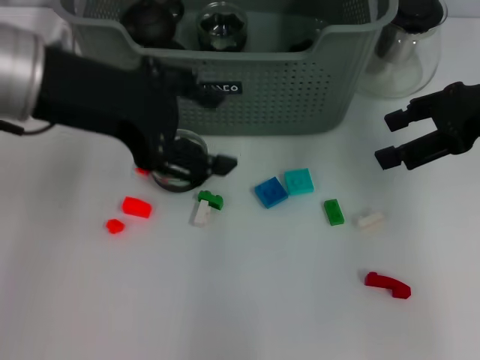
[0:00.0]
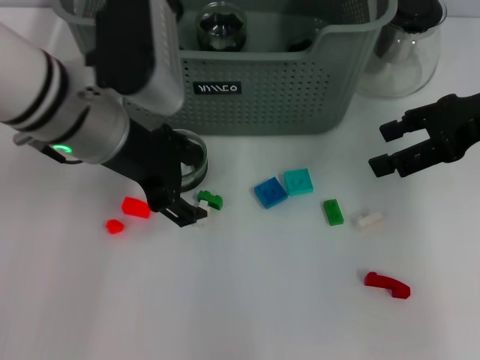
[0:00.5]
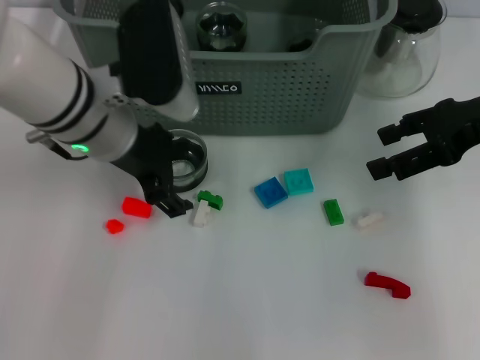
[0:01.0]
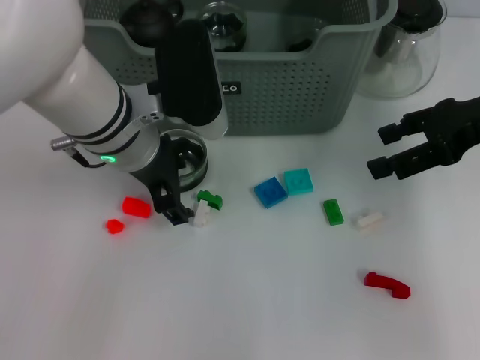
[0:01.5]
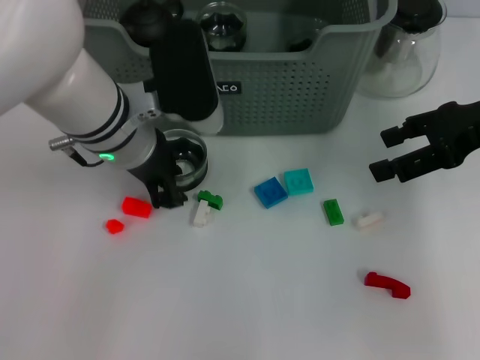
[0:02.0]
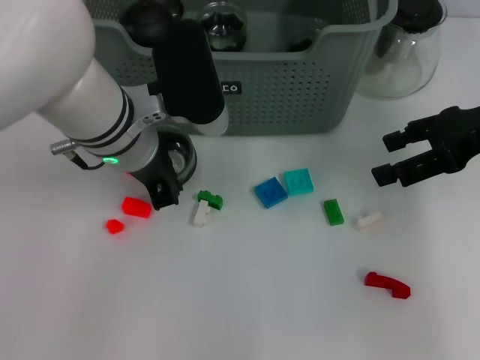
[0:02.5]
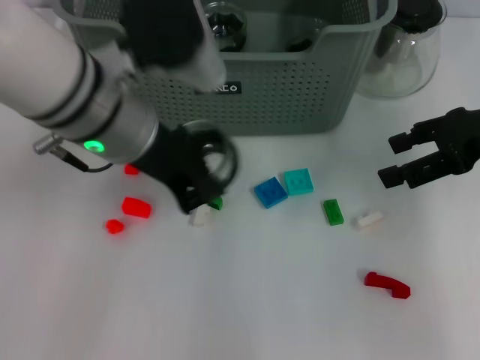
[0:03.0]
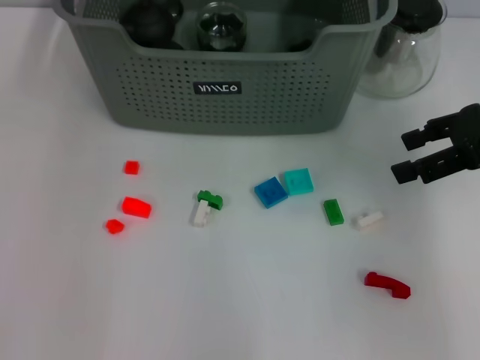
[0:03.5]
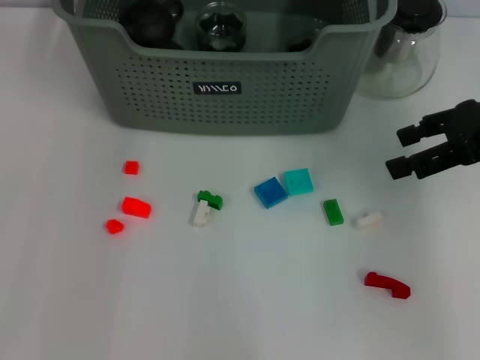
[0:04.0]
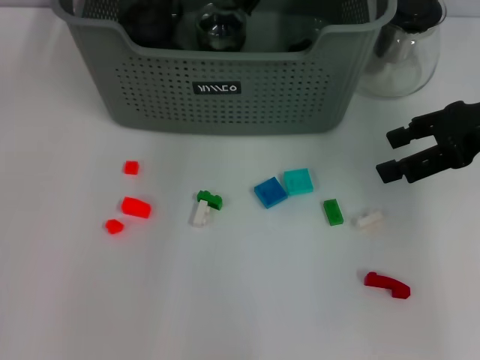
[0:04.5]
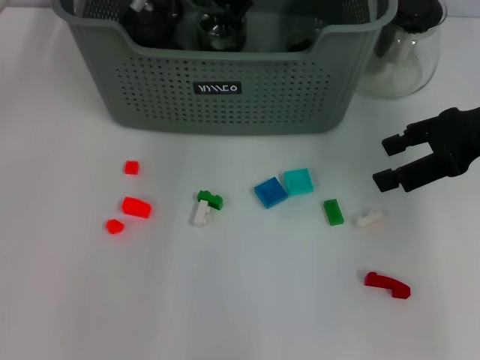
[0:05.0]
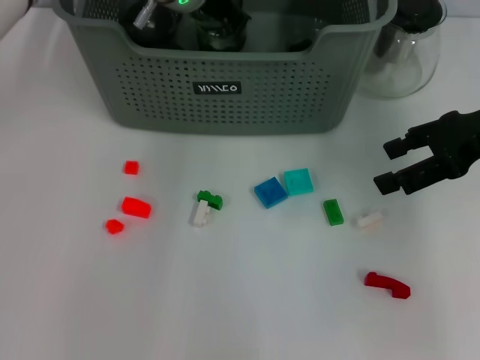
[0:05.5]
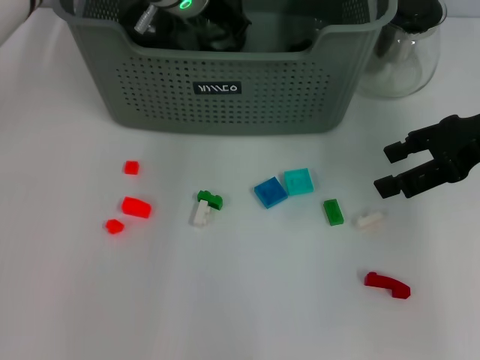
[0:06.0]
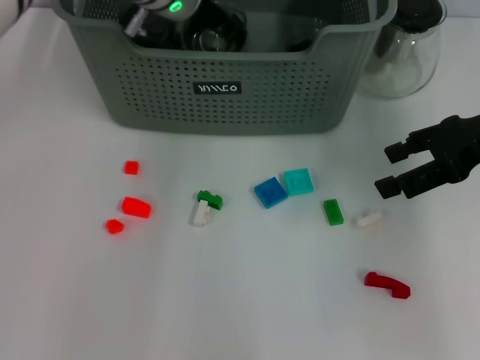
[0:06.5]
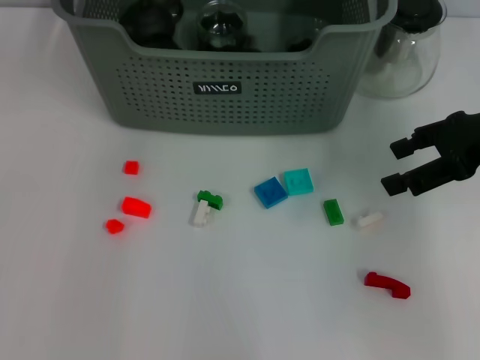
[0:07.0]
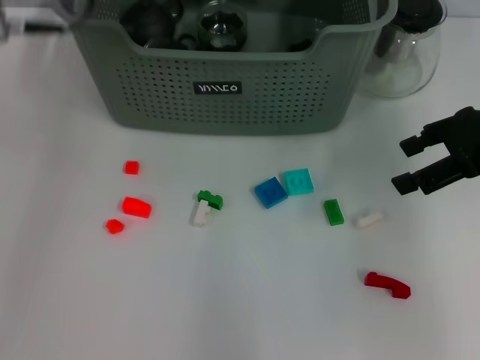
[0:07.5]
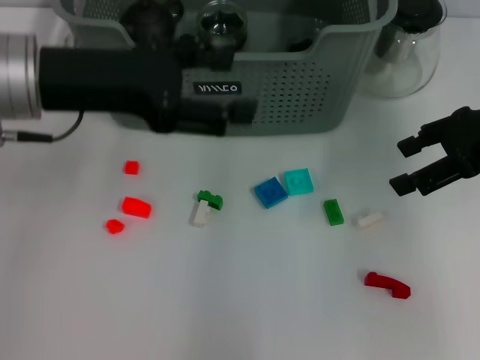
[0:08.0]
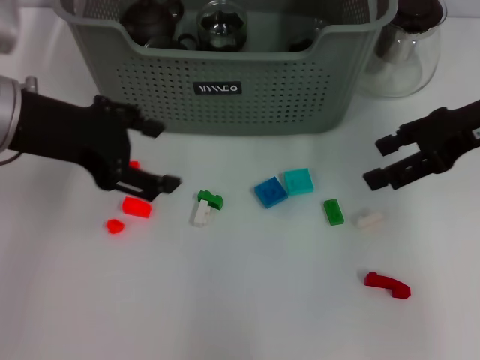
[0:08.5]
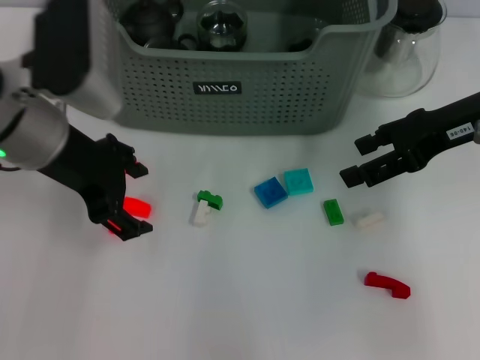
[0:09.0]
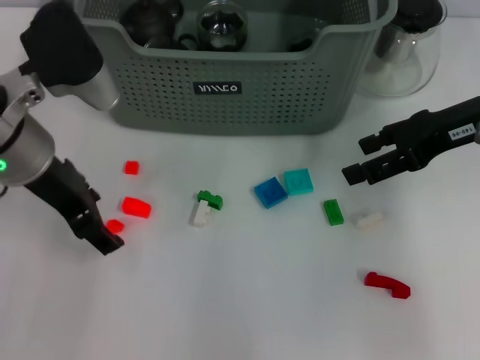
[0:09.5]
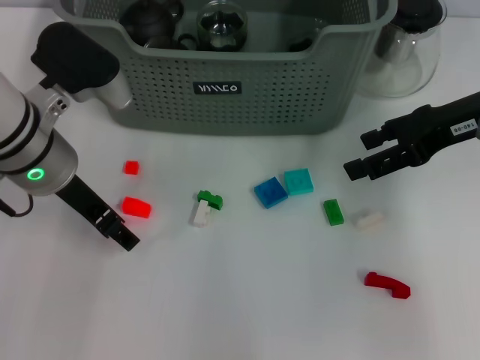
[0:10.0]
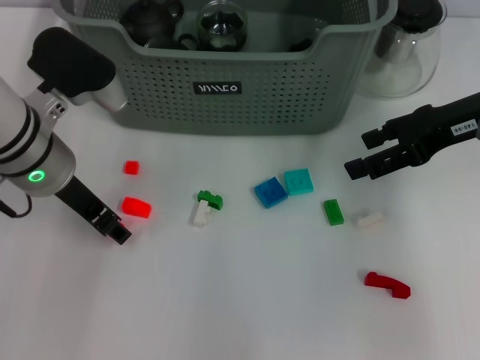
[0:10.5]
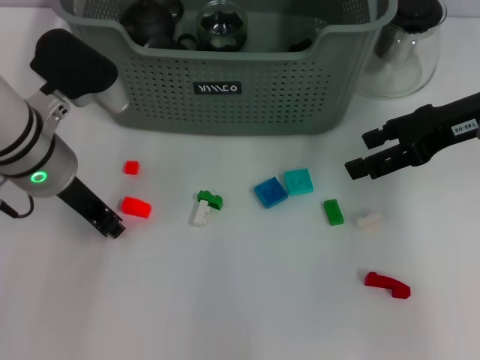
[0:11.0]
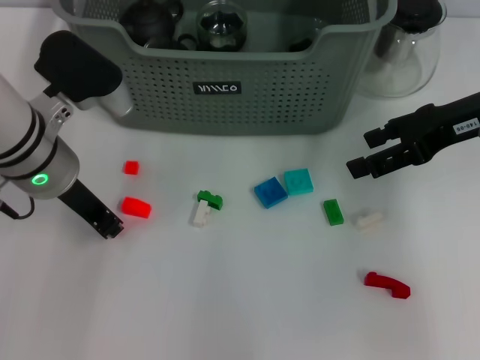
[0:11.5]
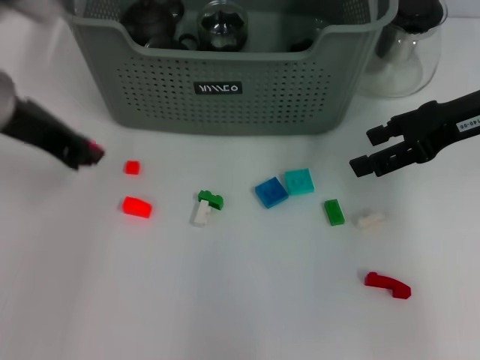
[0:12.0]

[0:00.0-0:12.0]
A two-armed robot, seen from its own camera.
Task of the whole recording: pick up the teacup on the table and place it into the storage bin, pick up the block on the table and place it into the storage bin.
Step, 0:00.0 to 0:02.0: Grasp the cup with left gripper.
Step, 0:03.0 to 0:06.5: Place the cup in the storage box with left gripper.
Step, 0:07.0 to 0:11.0: Grasp the orange block with left gripper.
0:00.0 to 0:02.0: The left gripper moves downward and to the right, approximately 15 cm.
0:02.0 to 0:04.0: The left gripper is displaced upward and forward by some 20 cm, and closes.
0:04.0 to 0:06.0: The left gripper moves downward and to the right, roughly 15 cm.
0:06.0 to 0:08.0: The left gripper travels backward and to the left by about 20 cm, and opens up.
0:08.0 to 0:10.0: The left gripper heads downward, covering approximately 5 cm.
0:10.0 to 0:12.0: The left gripper moves upward, approximately 10 cm, and closes up.

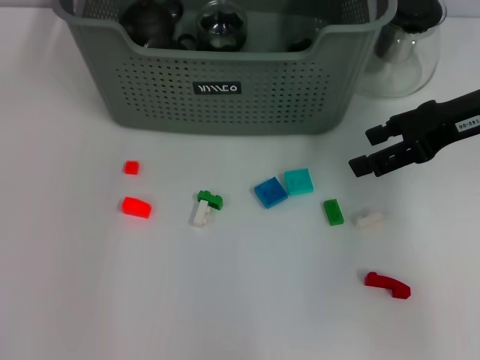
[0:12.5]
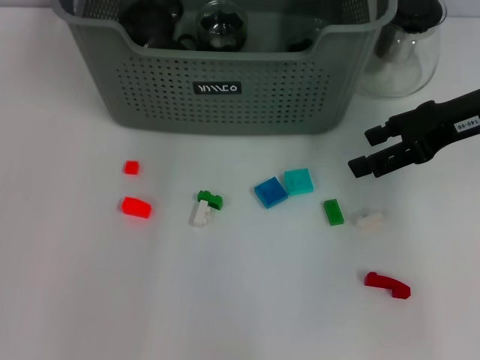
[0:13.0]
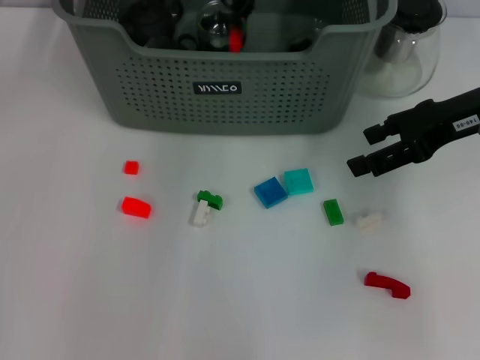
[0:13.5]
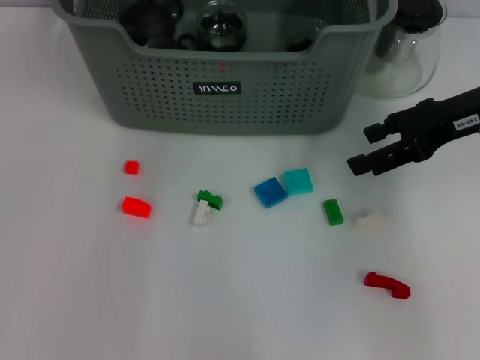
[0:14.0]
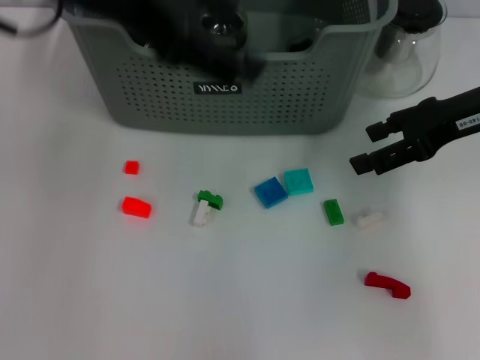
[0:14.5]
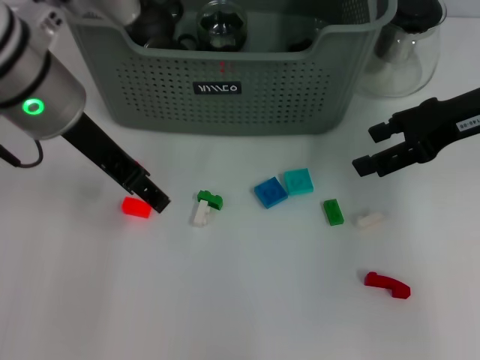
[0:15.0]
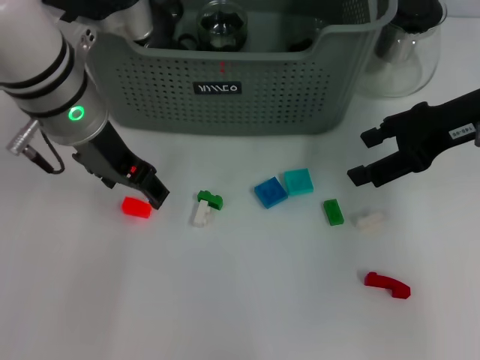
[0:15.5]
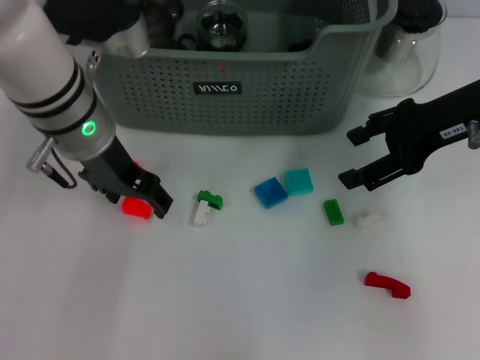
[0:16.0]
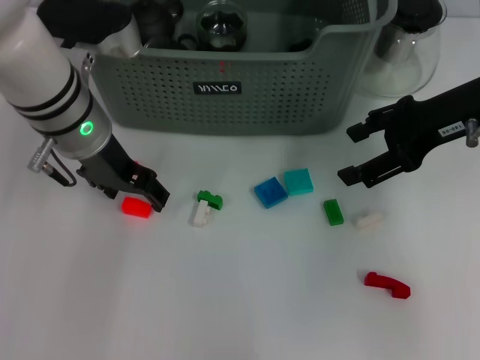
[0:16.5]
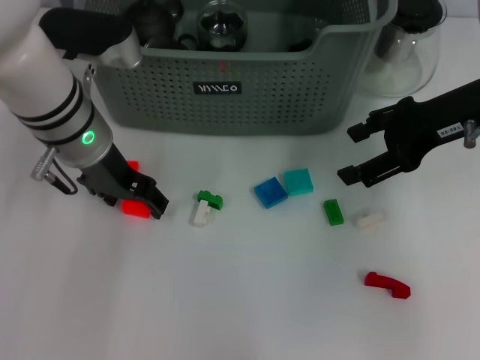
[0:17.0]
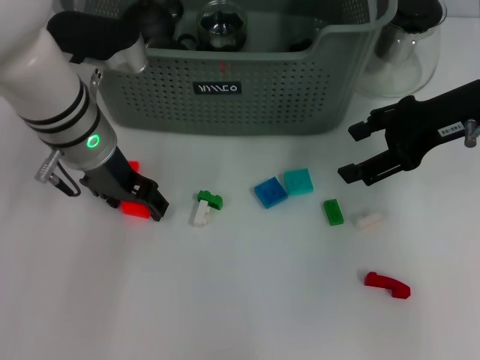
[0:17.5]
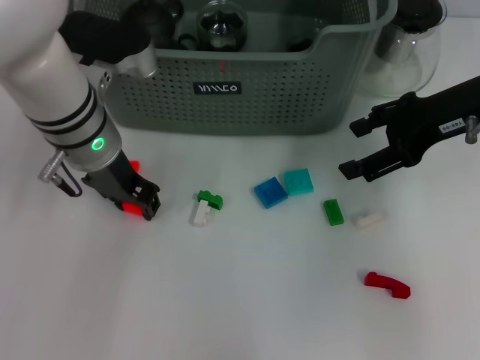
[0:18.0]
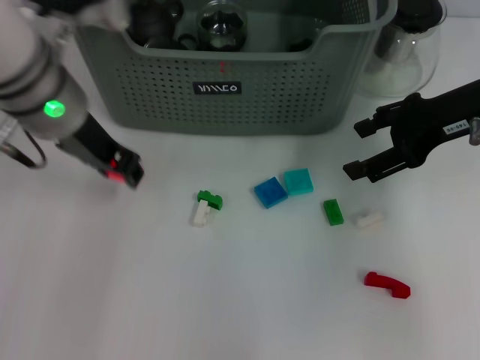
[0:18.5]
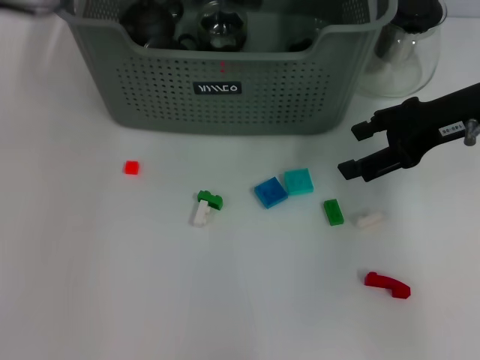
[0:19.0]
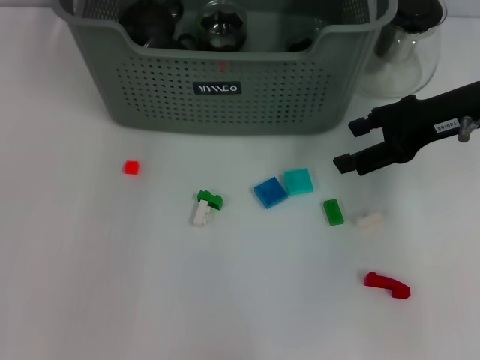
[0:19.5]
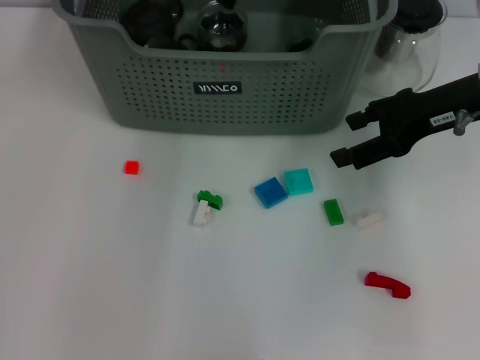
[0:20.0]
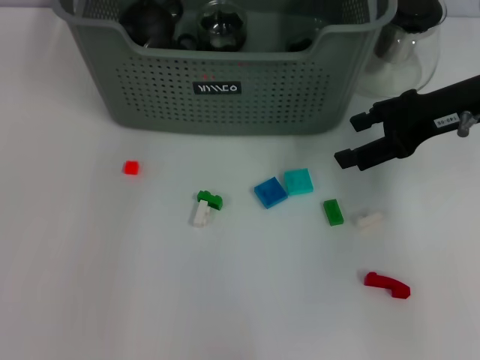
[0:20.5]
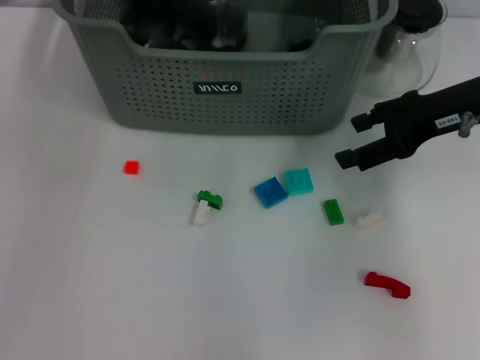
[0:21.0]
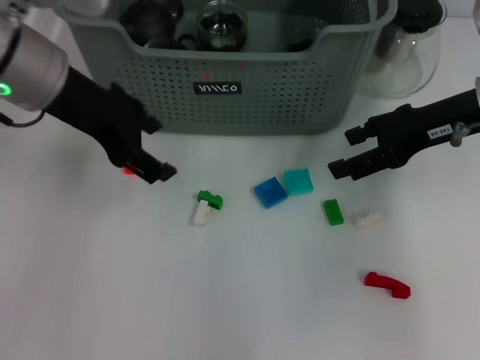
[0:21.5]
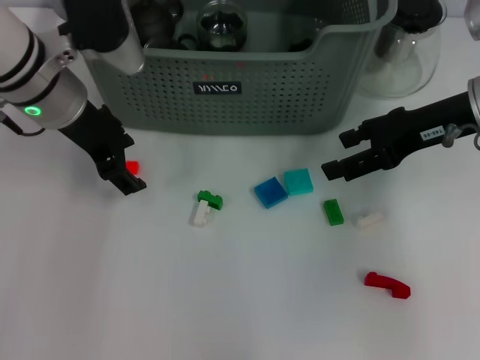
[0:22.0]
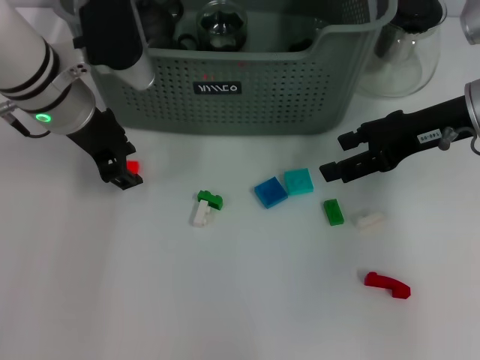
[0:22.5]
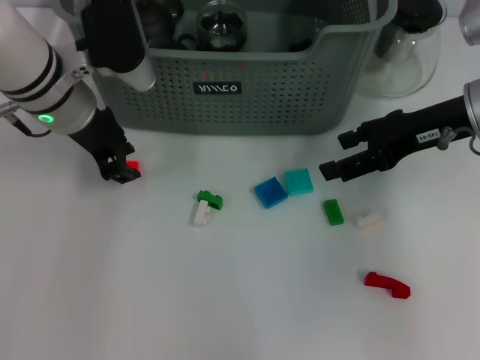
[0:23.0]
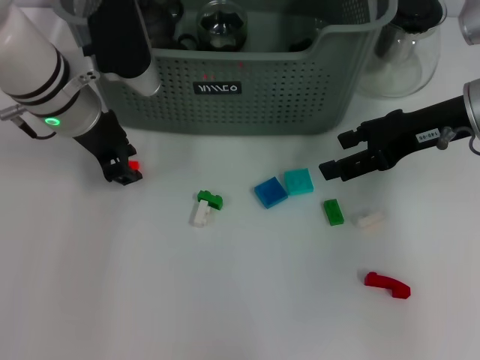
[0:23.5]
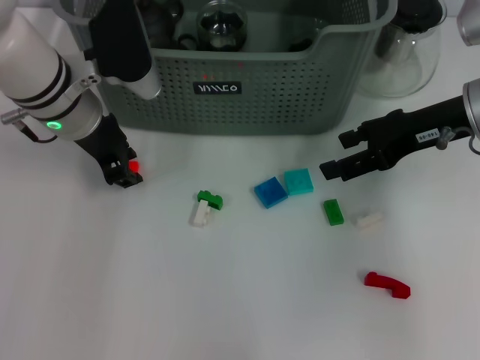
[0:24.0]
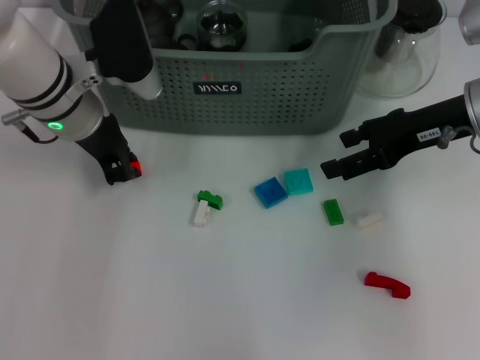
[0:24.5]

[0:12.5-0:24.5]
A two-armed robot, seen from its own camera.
Task of the whole recording: pick up the teacup on the table and place it into the storage bin, pick up the block on the table and place it into the storage bin.
Step, 0:12.5 to 0:13.5: Place the orange block in the storage box with left gripper.
Step, 0:14.0 to 0:18.0: Grasp the orange block with left gripper.
Step, 0:18.5 to 0:20.0: Place the orange block in the storage box with left gripper.
0:12.5 to 0:14.5: The left gripper reaches approximately 10 cm forward, then returns, and opens up.
0:14.5 to 0:16.5: The left gripper shifts approximately 15 cm downward.
0:16.5 to 0:18.5: The left gripper closes.
0:18.5 to 0:20.5: The left gripper goes about 15 cm forward and upward, and opens up.
0:20.5 to 0:22.5: The left gripper is displaced downward and backward by some 15 cm.
0:22.5 to 0:24.5: The left gripper closes up.

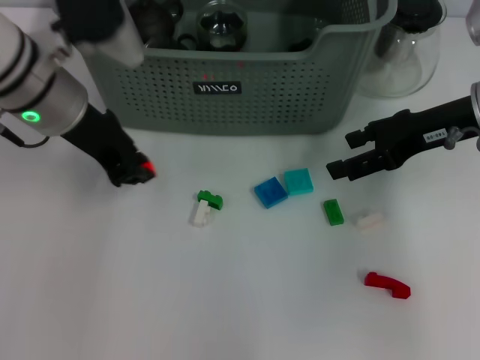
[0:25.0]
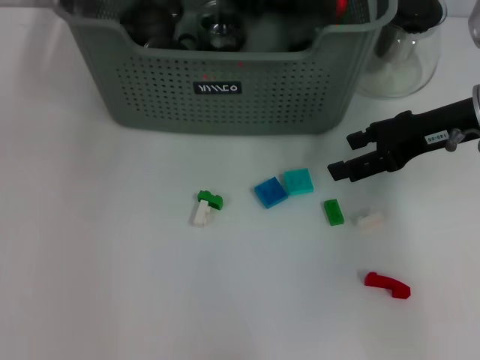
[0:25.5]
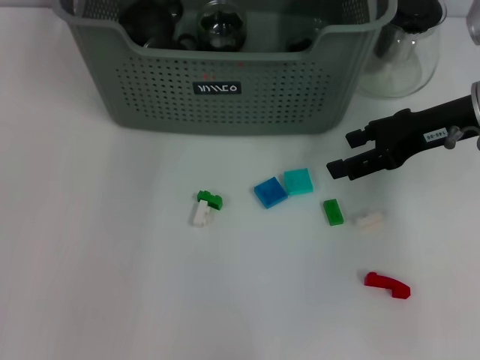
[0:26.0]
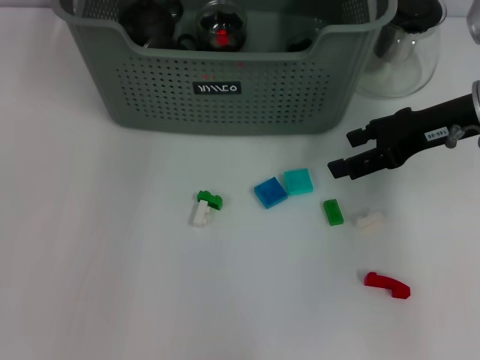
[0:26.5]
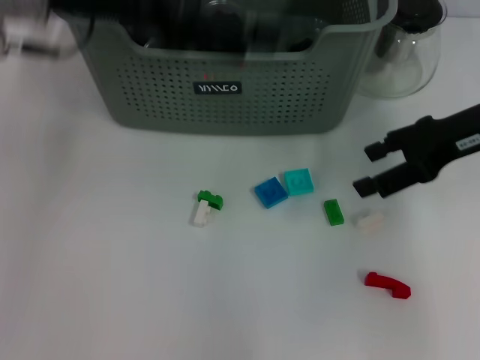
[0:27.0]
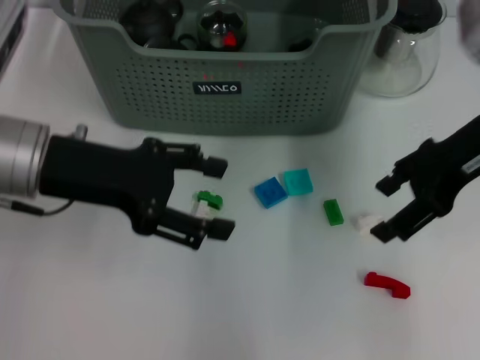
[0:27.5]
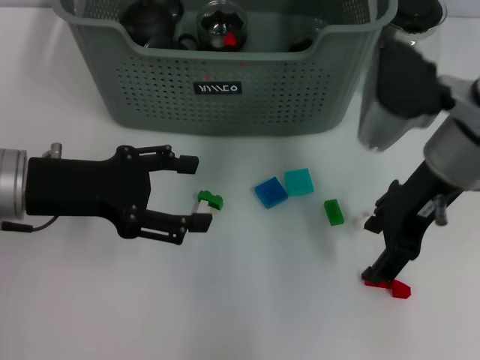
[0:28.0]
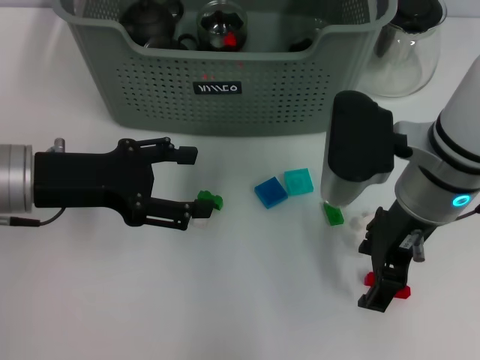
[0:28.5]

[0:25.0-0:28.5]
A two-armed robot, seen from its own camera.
Task of the whole recording: pick up the teacup on the table and place it into the storage bin, pick up the block on the table and place it into the storage bin.
Step, 0:25.0 to 0:26.0: Place the orange block in the storage box with left gripper.
0:25.0 to 0:27.0: The left gripper shifts some 10 cm upward, goes forward and returns, approximately 15 cm each way, and opens.
0:27.0 to 0:28.5: The left gripper moves downward and backward, about 15 cm. The right gripper goes approximately 15 cm to the left and backward.
